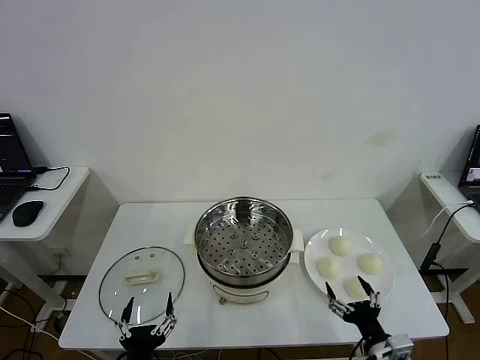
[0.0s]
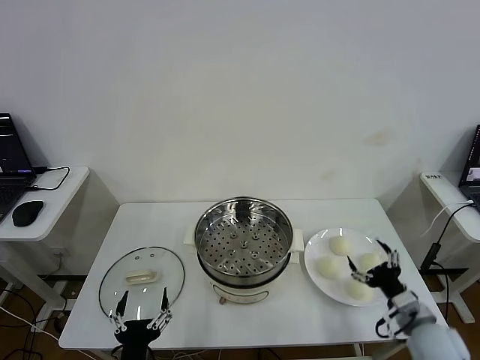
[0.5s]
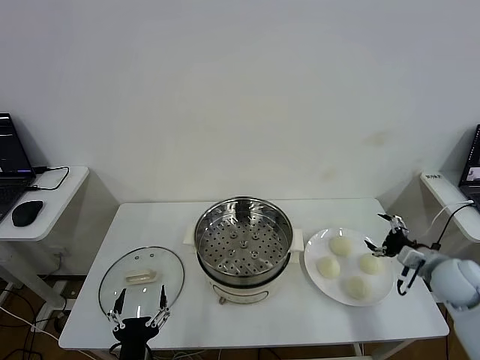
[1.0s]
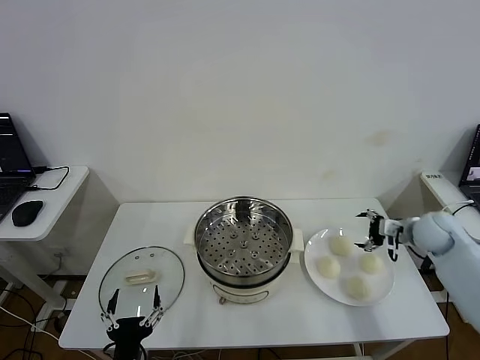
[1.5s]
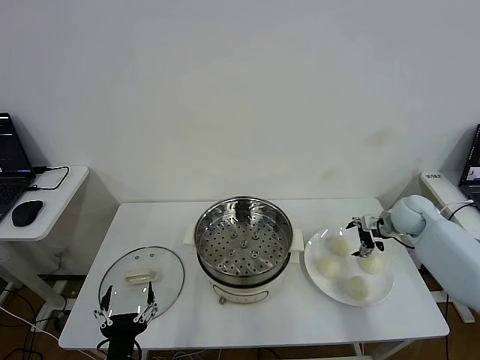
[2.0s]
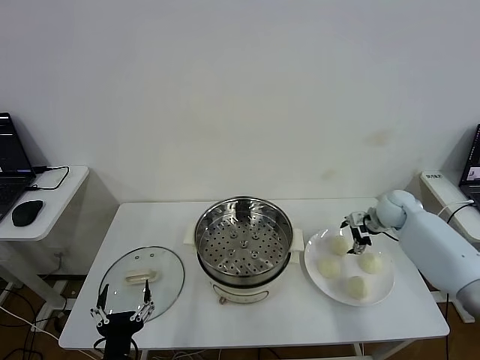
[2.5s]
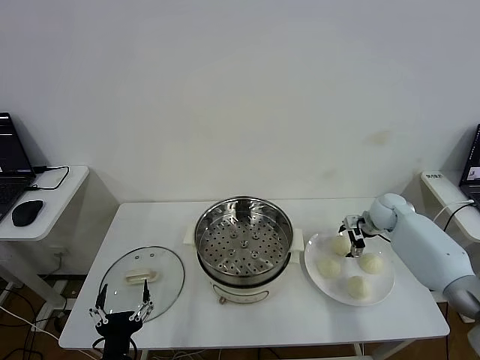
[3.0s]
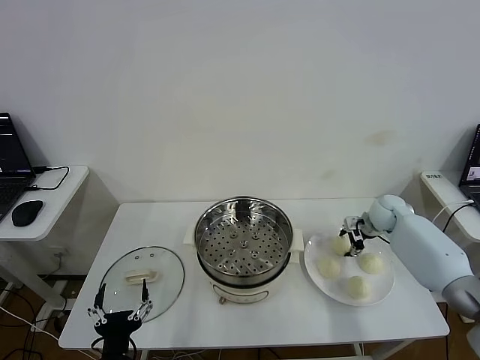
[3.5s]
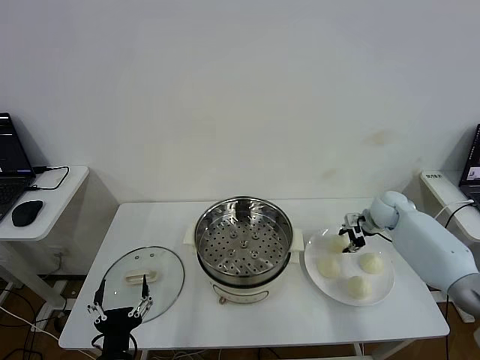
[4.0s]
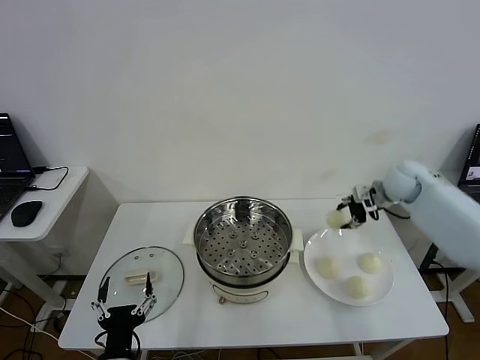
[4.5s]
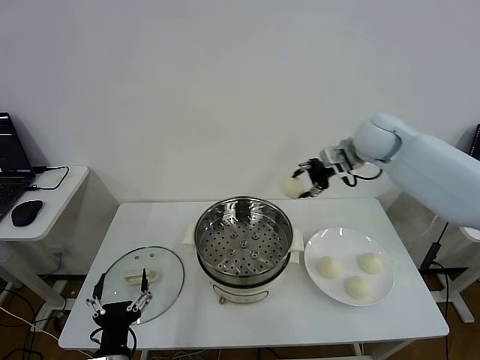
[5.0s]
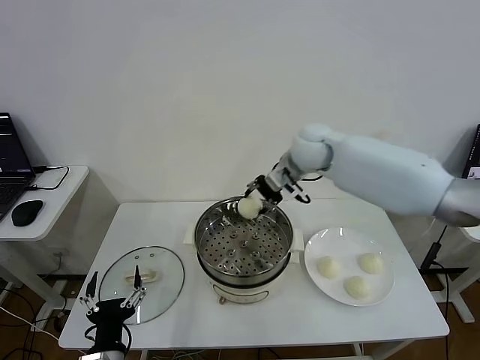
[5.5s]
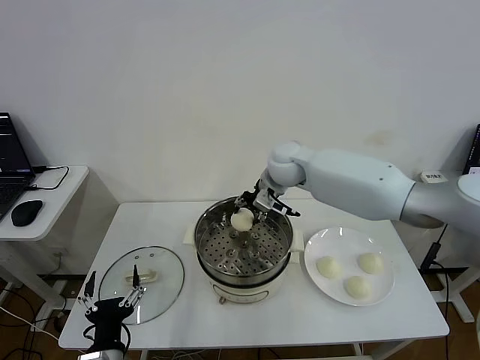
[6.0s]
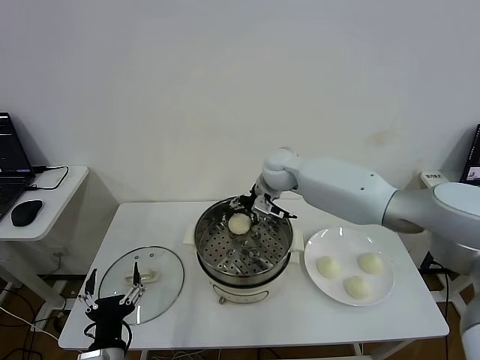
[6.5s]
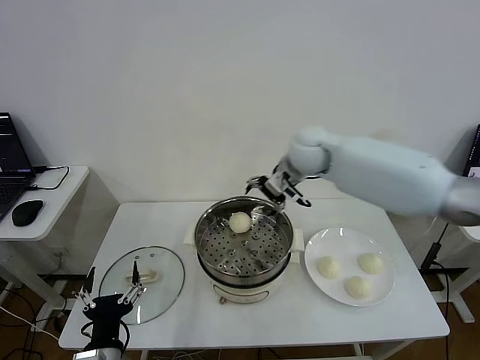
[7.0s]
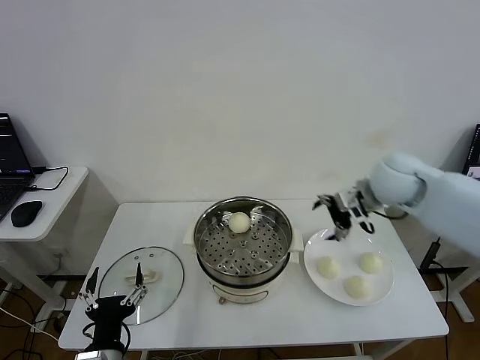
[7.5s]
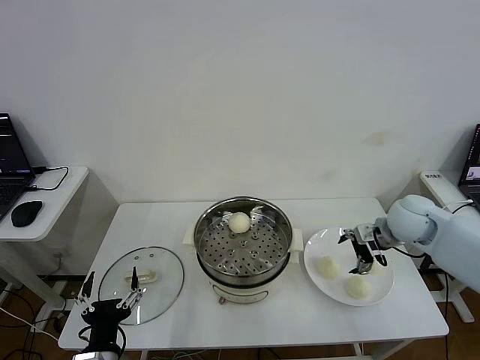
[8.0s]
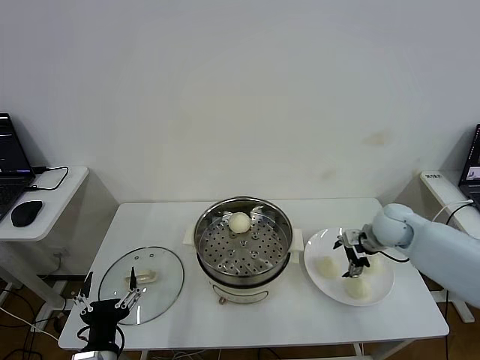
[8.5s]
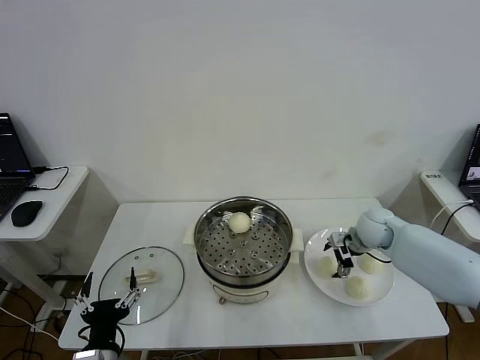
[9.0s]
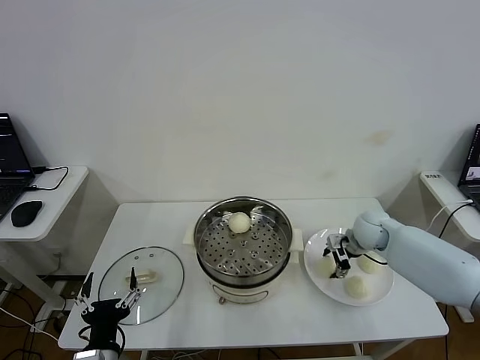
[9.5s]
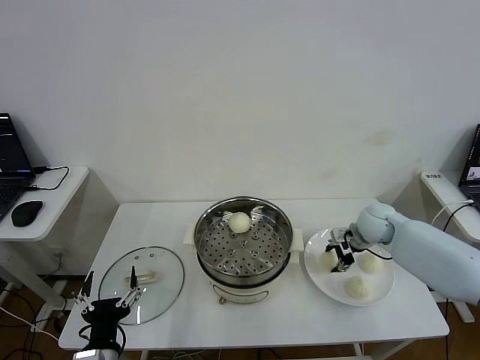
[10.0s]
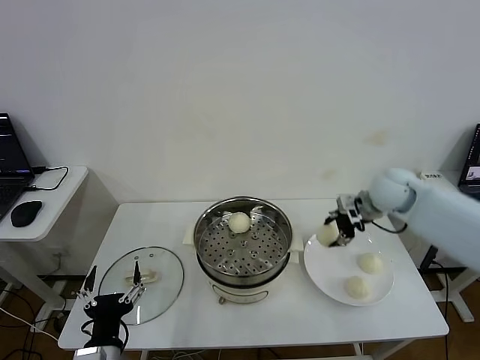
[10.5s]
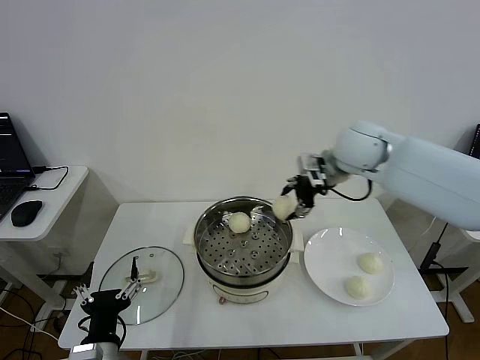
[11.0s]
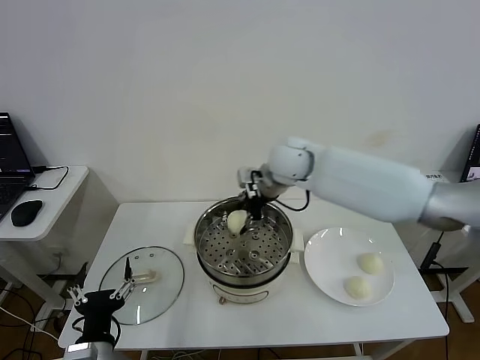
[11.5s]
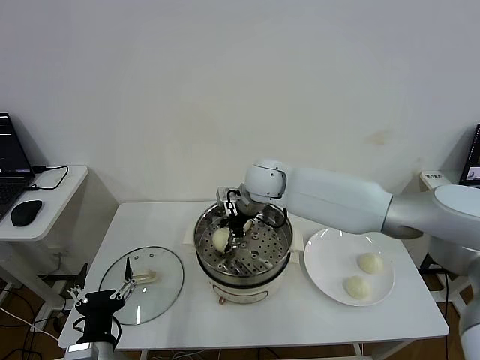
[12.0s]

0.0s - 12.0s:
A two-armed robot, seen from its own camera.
Step, 0.0s - 3.5s: Grasp the baozi in the plate with right gripper.
Step, 4.0s - 6.0s: Place the baozi on the steamer with right gripper.
Step, 7.0s - 9.5s: Grasp the baozi in the plate with right gripper.
2.0s - 4.0s: The right gripper closes its fingers.
4.0s - 6.0s: The right gripper travels to the left and upward by approximately 30 cm.
6.0s - 8.0s: The right gripper is displaced to the right and backward by about 30 cm, and opens.
8.0s - 10.0s: The right gripper is displaced downward by some 5 cm, and closes its fingers.
10.0s - 12.0s: The right gripper is displaced to the left by approximately 30 cm, and opens its fingers.

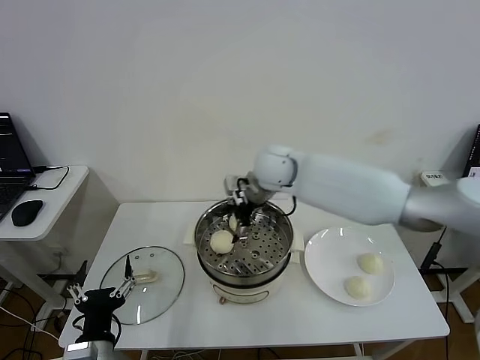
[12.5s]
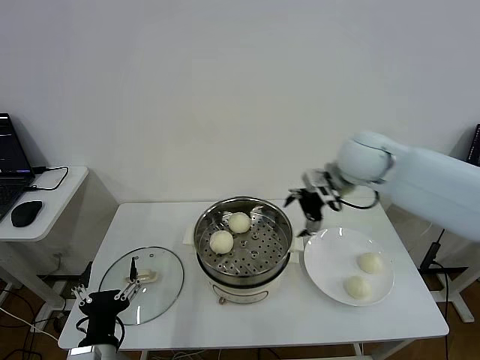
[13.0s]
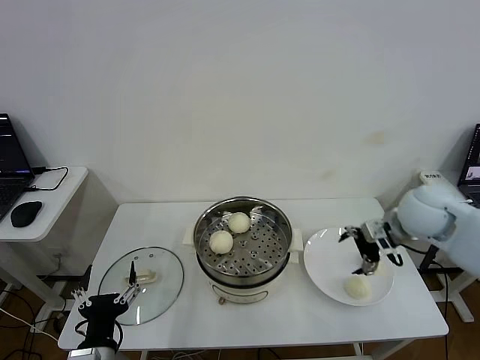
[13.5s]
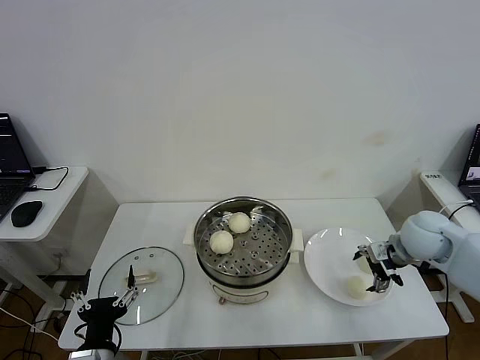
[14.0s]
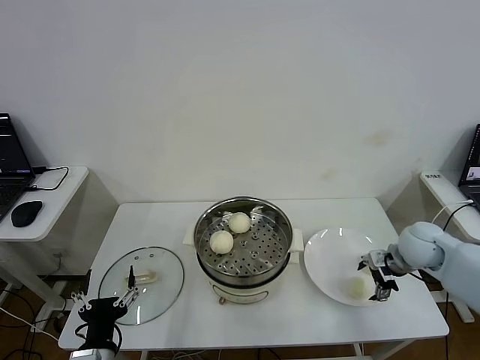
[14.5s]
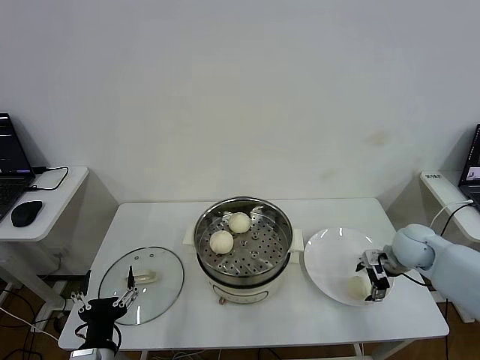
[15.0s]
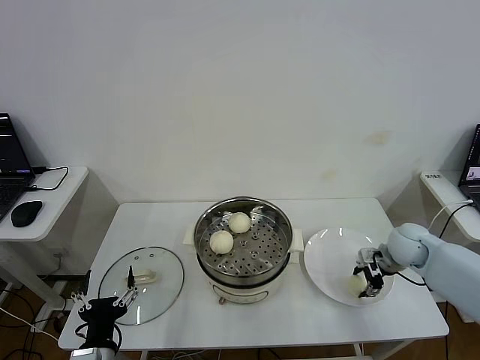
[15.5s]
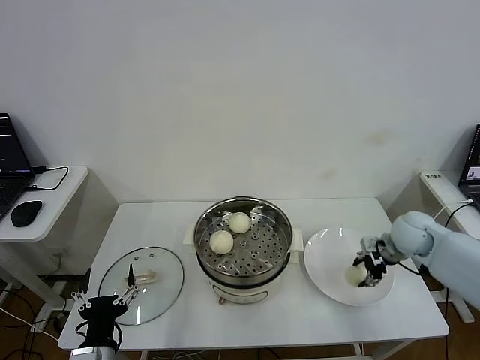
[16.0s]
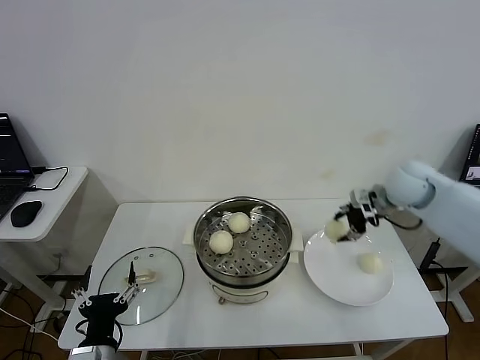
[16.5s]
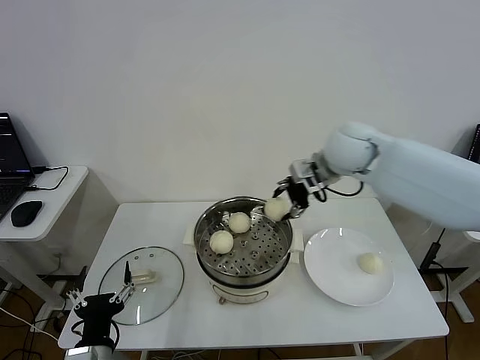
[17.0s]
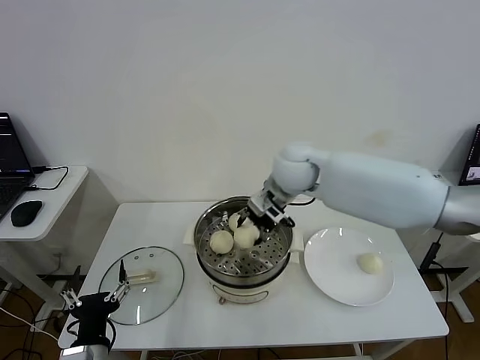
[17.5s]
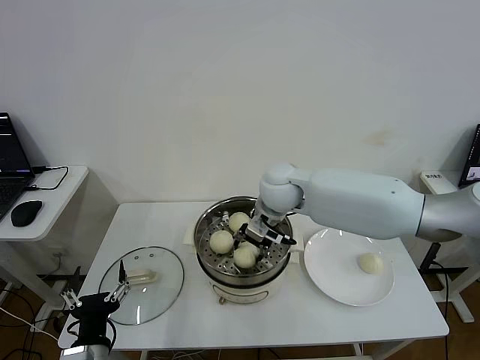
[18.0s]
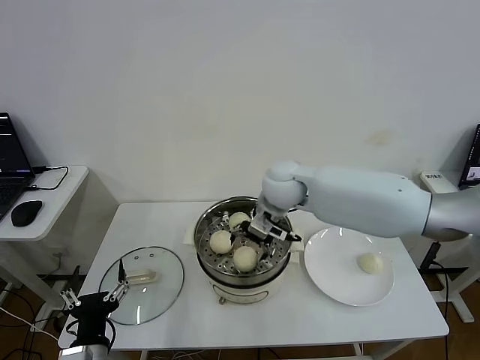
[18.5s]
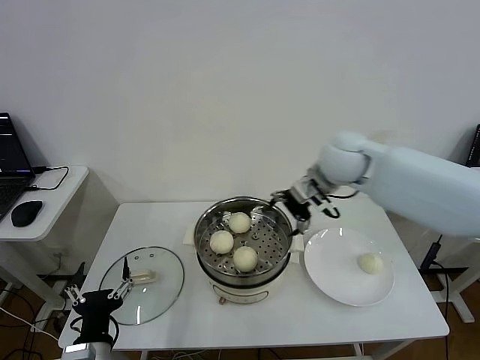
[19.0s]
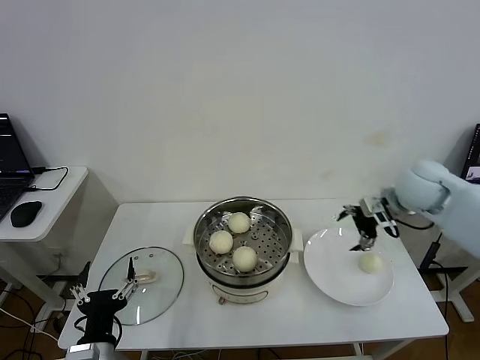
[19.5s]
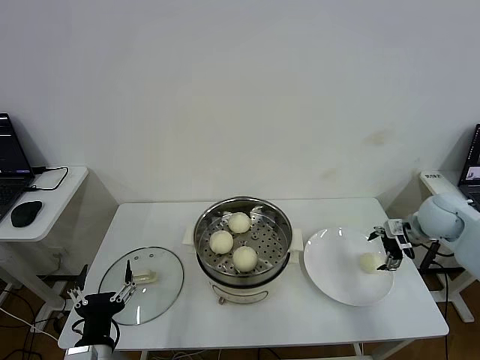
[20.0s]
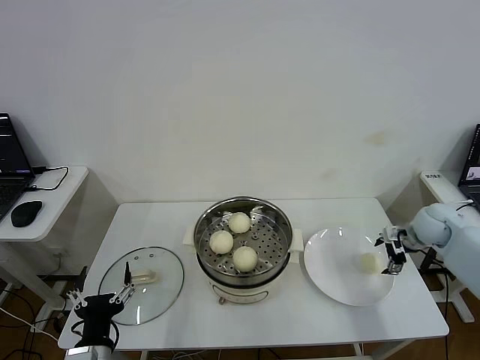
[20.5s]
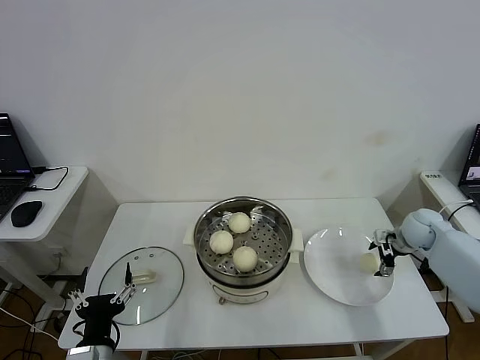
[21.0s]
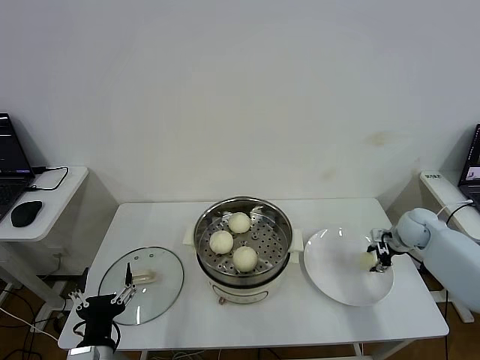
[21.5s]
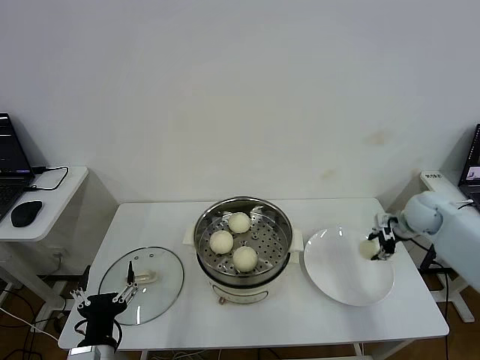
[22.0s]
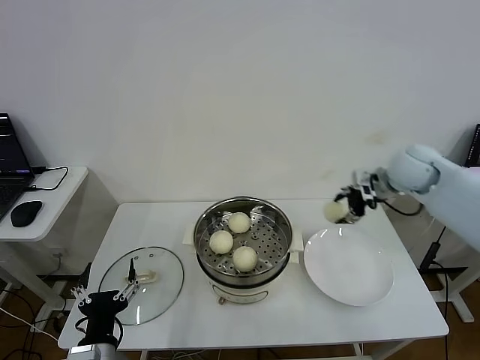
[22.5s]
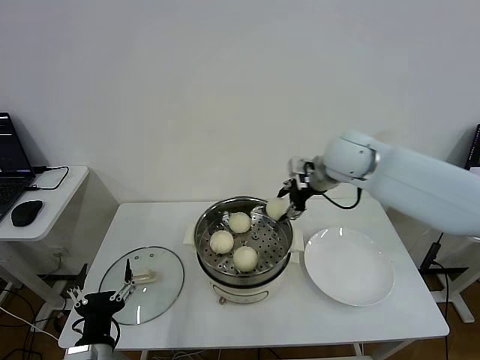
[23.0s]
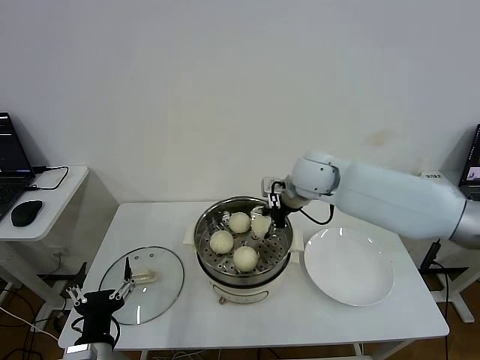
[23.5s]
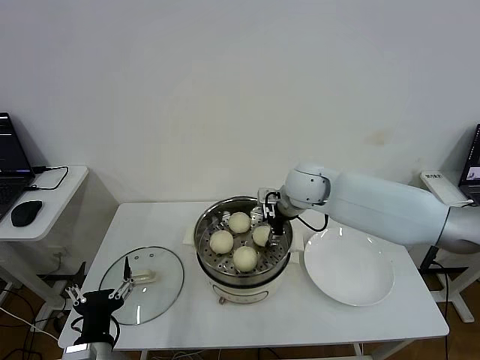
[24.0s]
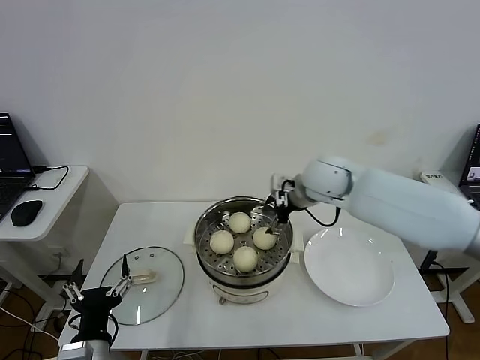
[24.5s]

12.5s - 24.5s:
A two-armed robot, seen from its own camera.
Step, 12.5s - 15.5s: Grasp the baozi in the plate with right gripper.
Step, 16.0s - 18.0s: Place the baozi on the steamer with right gripper.
Step, 18.5s - 21.5s: Grasp the baozi in the plate with right gripper.
Step, 22.0s - 24.0s: Place the baozi on the steamer with right gripper.
12.5s - 14.5s: The right gripper shifts roughly 35 cm to the right and downward.
14.5s - 16.5s: The right gripper is displaced upward, forward and to the left by roughly 20 cm, and closes up.
16.5s - 18.5s: The right gripper shifts approximately 25 cm to the left, and opens its fingers.
18.5s - 20.5s: The right gripper shifts approximately 35 cm to the right.
20.5s - 22.5s: The right gripper travels upward and to the left by approximately 20 cm, and closes.
22.5s - 24.5s: The right gripper is displaced to the left by roughly 15 cm, and opens up.

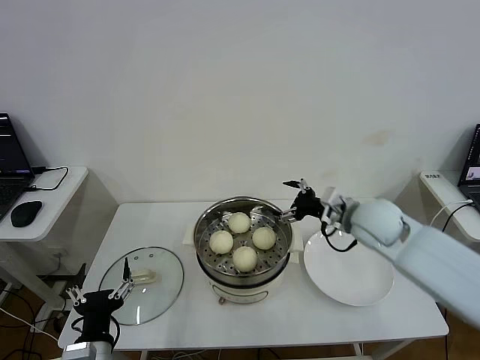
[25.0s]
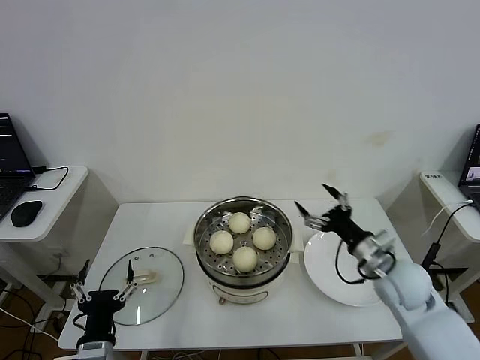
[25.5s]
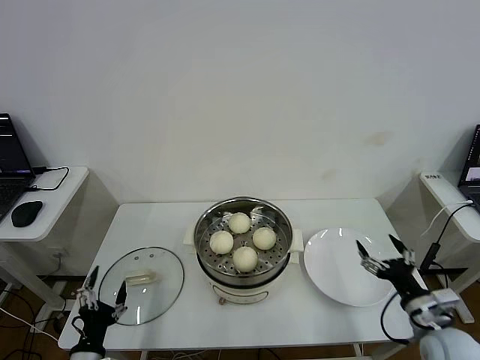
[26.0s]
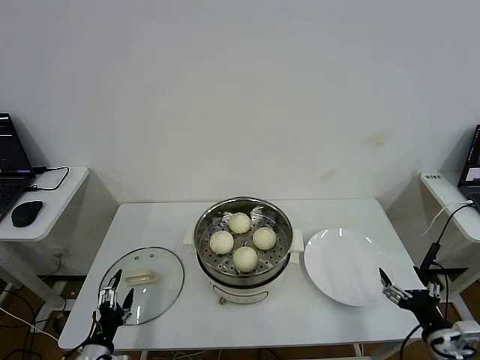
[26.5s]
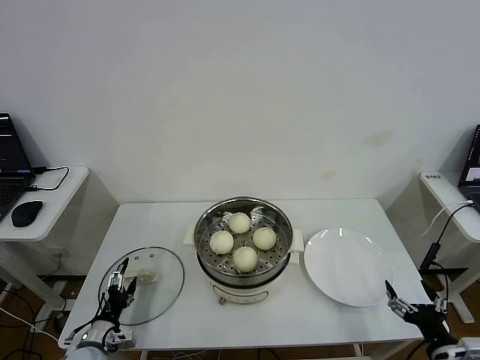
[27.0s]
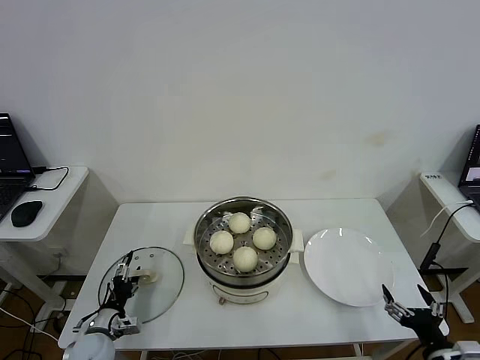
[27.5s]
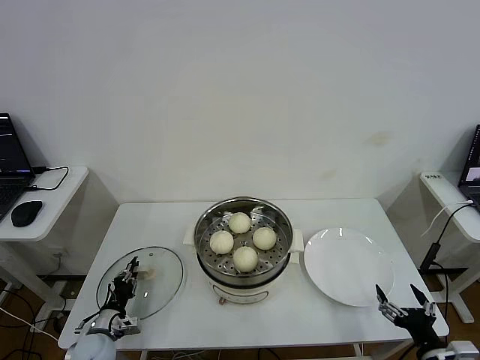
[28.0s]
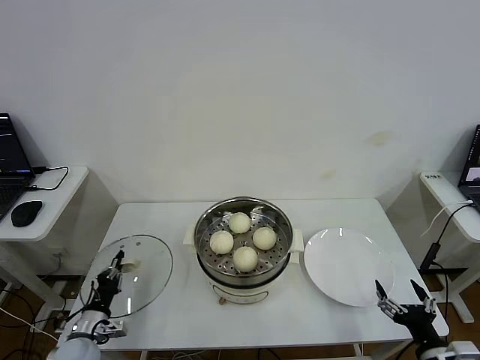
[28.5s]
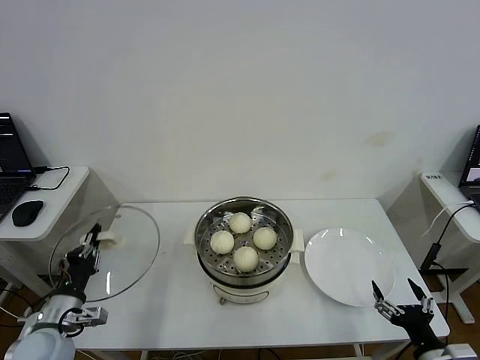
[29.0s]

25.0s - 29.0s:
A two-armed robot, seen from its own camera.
Step, 25.0s - 28.0s: Grasp the pot lid with left gripper.
25.0s - 27.0s: The left gripper is displaced downward, to the left and forward by roughly 20 cm, while the right gripper moves backward, downward and to the right, roughly 35 cm.
27.0s - 29.0s: The left gripper goes roughly 15 cm upward, and closes up.
